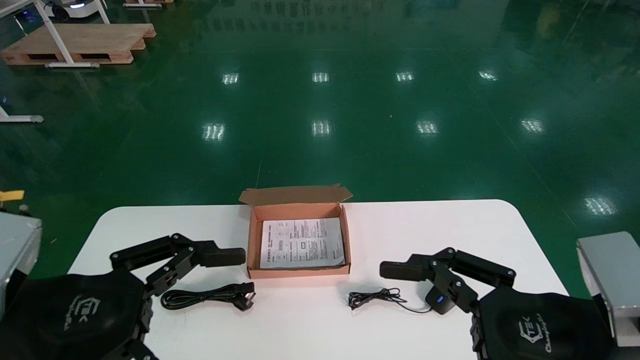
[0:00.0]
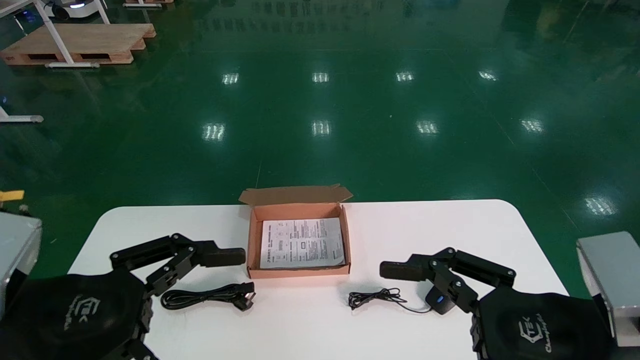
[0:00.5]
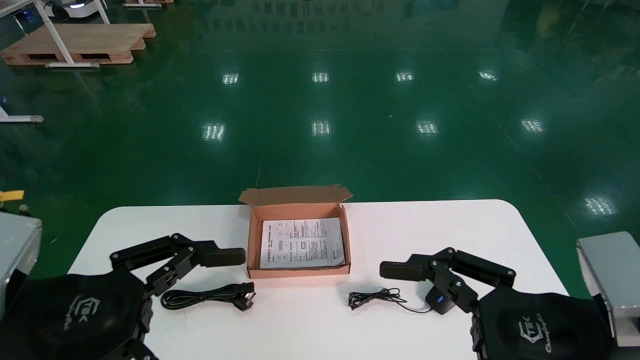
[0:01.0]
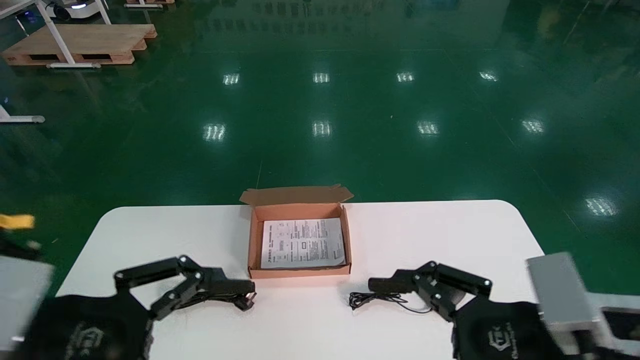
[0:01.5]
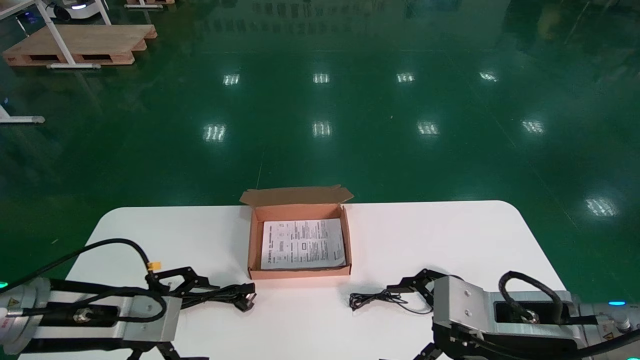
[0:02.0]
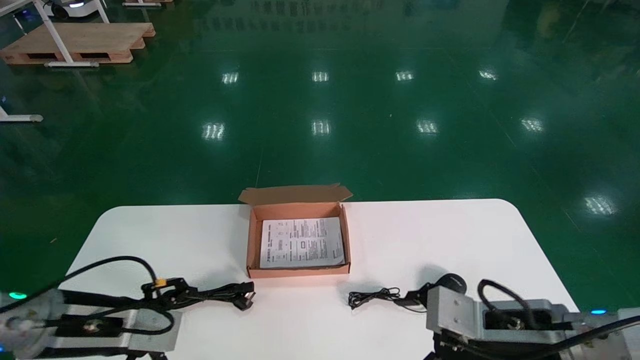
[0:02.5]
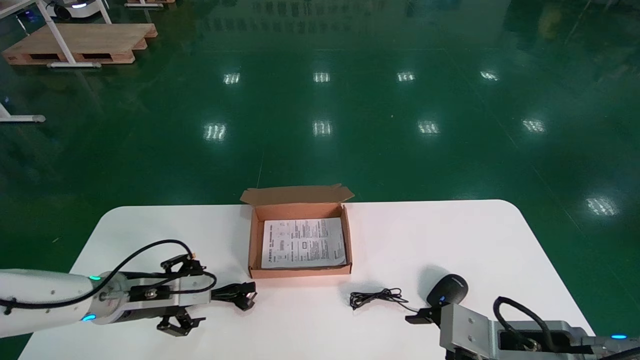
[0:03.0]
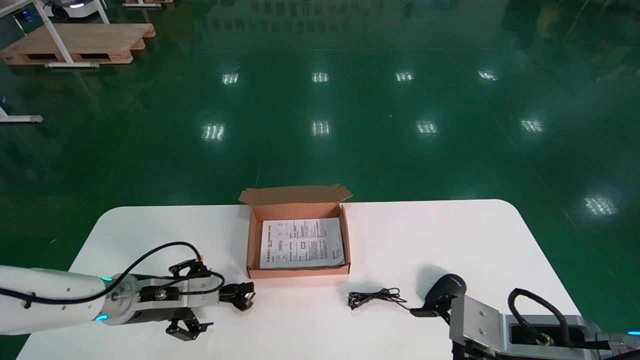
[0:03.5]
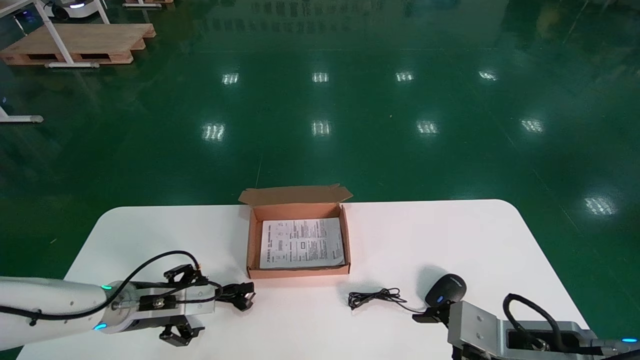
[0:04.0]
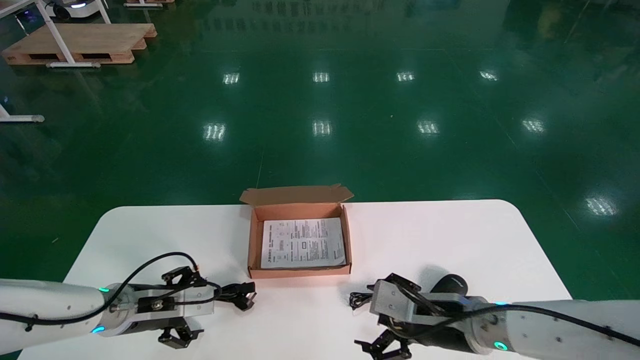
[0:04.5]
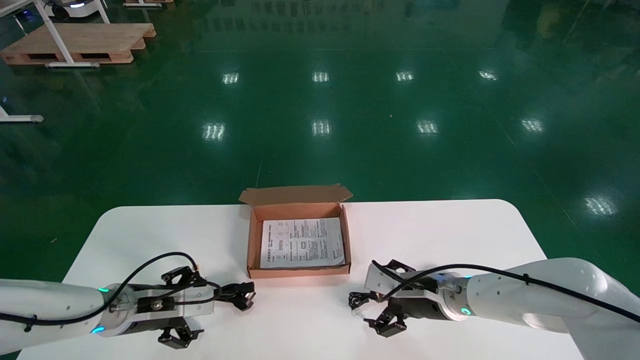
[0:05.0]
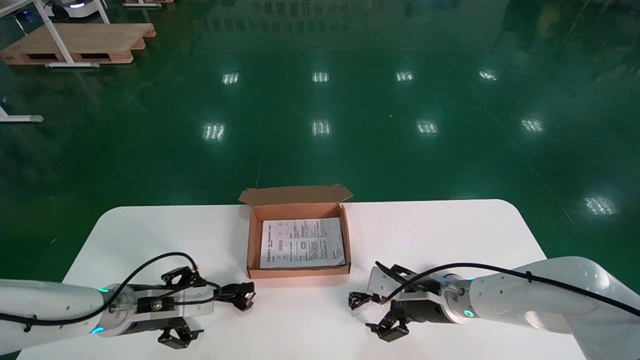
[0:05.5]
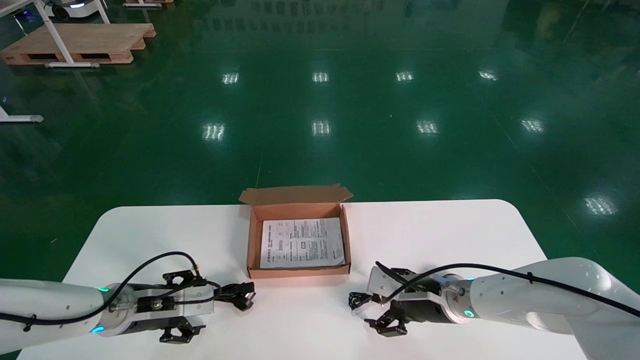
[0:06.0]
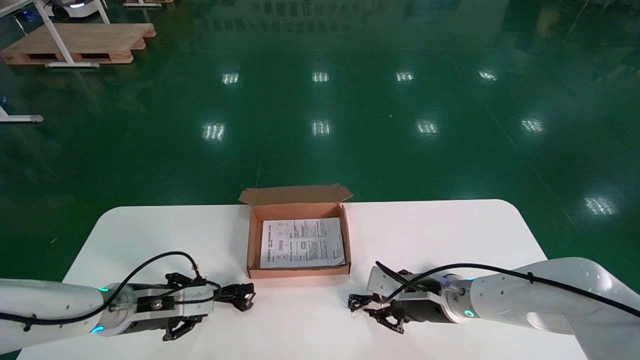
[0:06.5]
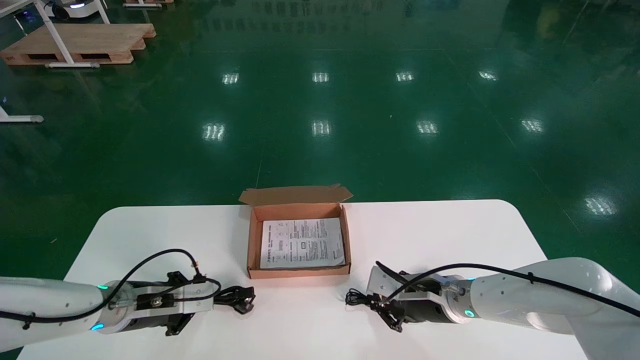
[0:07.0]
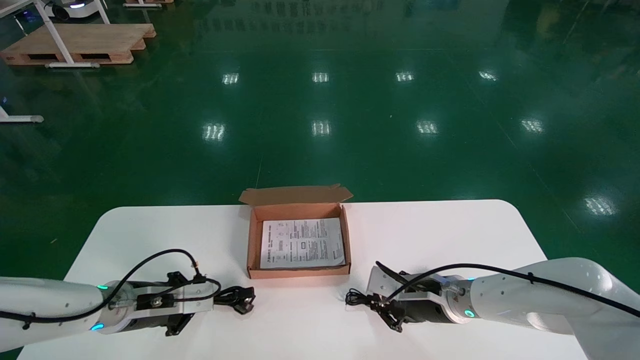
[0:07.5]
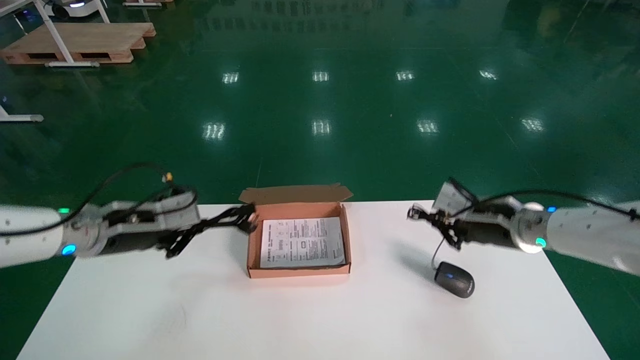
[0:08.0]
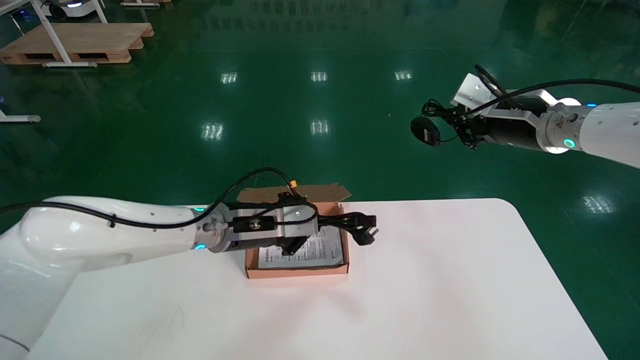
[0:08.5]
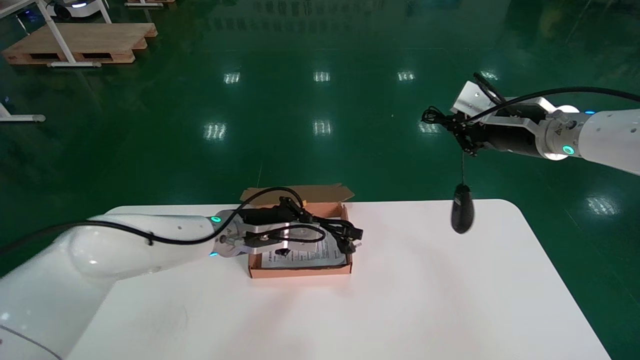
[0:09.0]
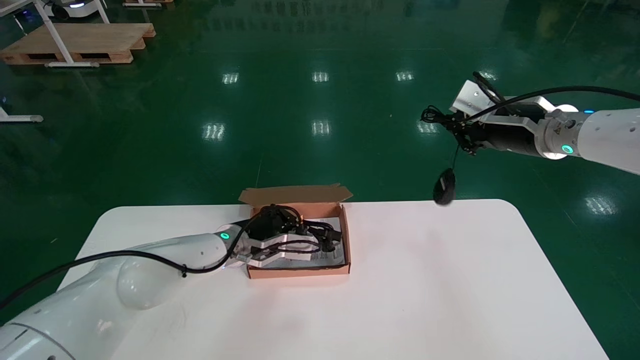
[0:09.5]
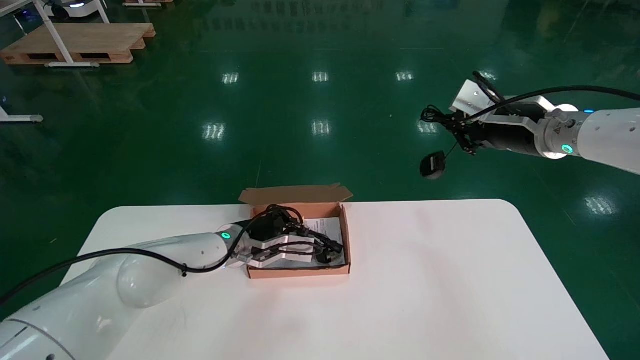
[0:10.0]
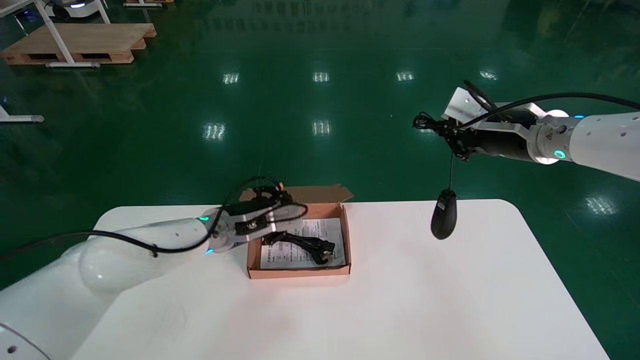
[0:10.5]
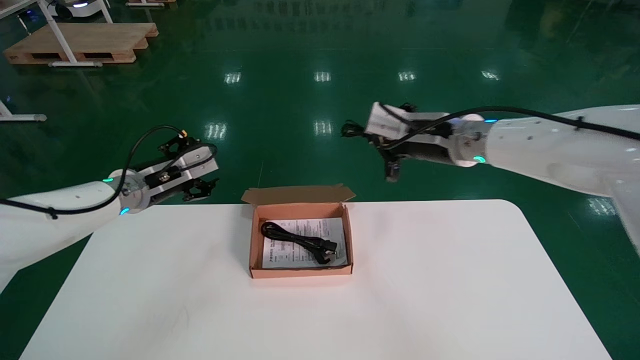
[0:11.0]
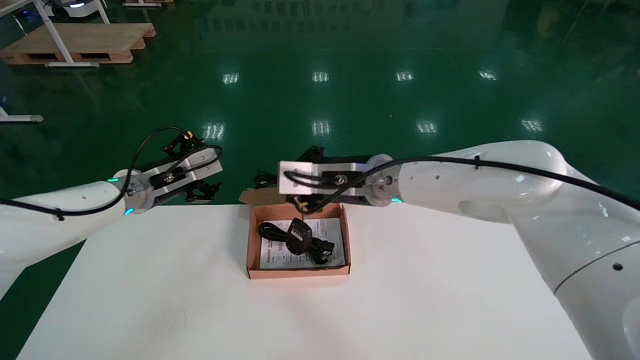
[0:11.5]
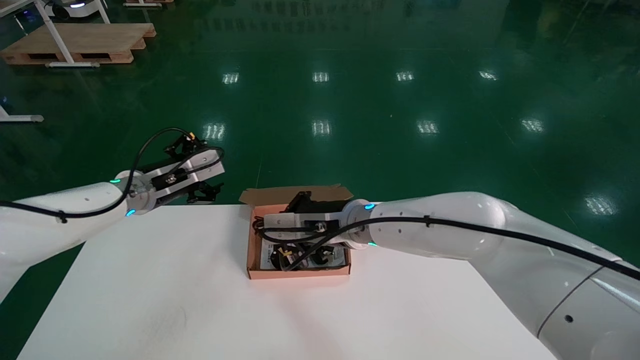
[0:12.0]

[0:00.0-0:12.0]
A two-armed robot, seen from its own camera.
Step, 0:02.0 to 0:06.5: Simultaneously pick up the mouse and power cord from the accessory packaging area.
0:00.0 to 0:02.0: Both grippers travel together forward, approximately 10 cm.
0:02.0 to 0:04.0: The left gripper is displaced forward and downward by roughly 15 cm.
0:04.0 to 0:06.0: The right gripper moves forward and to the left, roughly 20 cm.
0:06.0 to 0:08.0: The right gripper travels upward and to the right by some 15 cm, and closes. Meanwhile the left gripper shifts approximately 10 cm upward, and closes.
0:08.0 to 0:10.0: The right gripper moves upward, about 10 cm. The left gripper shifts about 15 cm to the right and forward.
0:10.0 to 0:12.0: The right gripper heads to the left and downward, covering approximately 30 cm. Meanwhile the left gripper heads to the left and upward, covering about 15 cm, and opens.

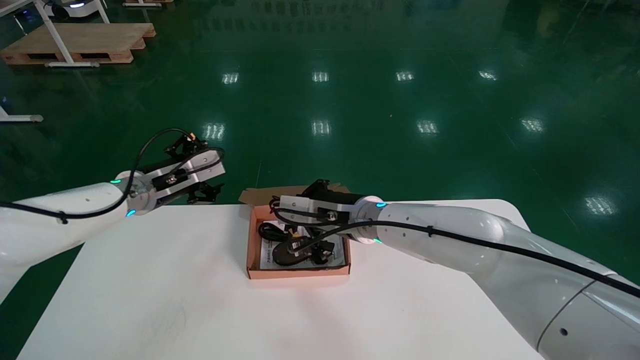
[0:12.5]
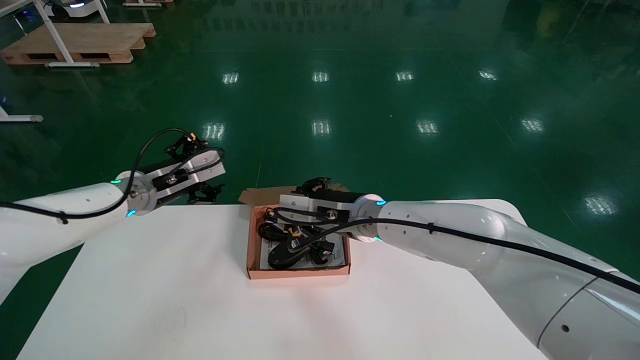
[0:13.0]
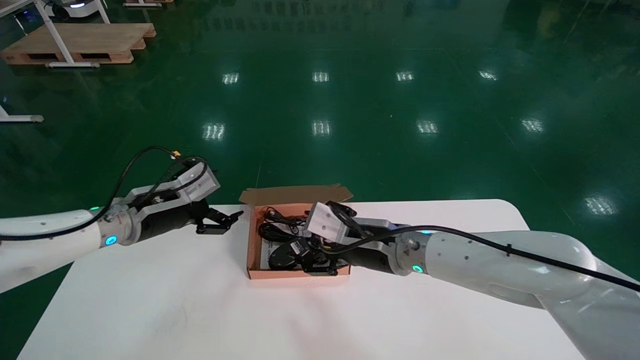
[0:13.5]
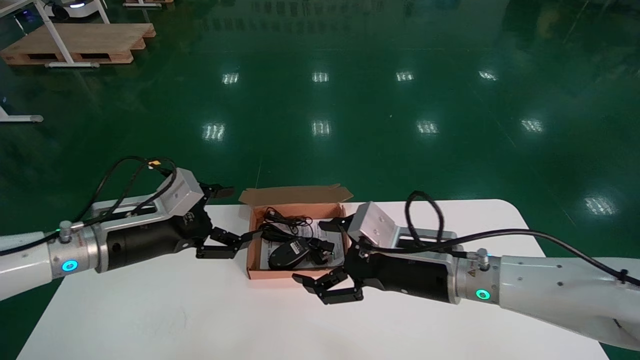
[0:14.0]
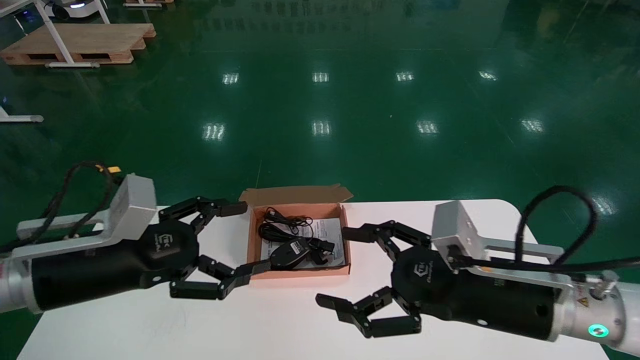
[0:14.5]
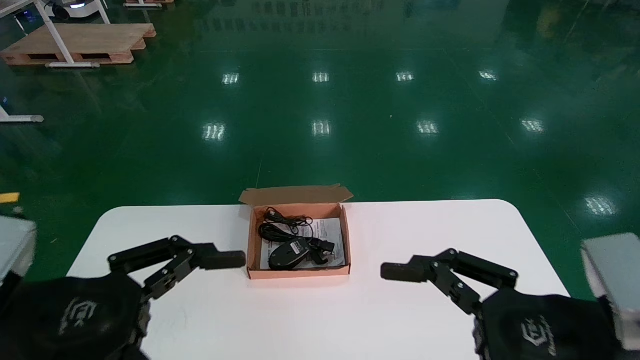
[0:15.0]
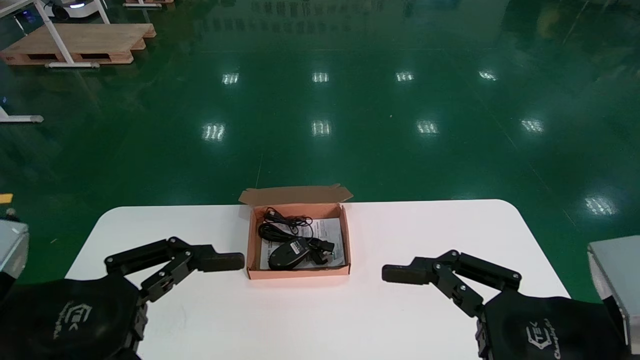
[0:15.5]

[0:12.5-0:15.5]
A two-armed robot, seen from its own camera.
0:12.5 to 0:14.0: The left gripper shifts roughly 10 cm backward. Meanwhile the right gripper shifts approximately 15 cm to the right and backward, and opens up.
0:14.0 to 0:15.5: The right gripper is displaced backward and to the right by about 20 cm, while the left gripper shifts about 20 cm backward.
